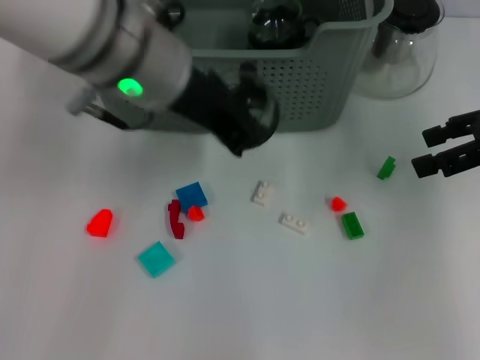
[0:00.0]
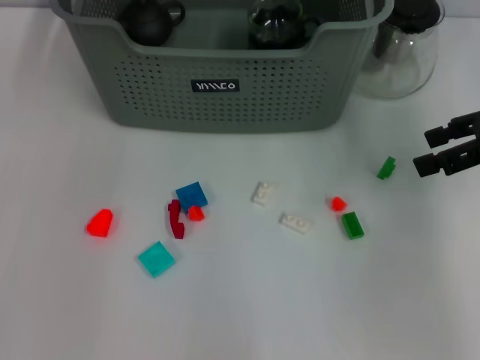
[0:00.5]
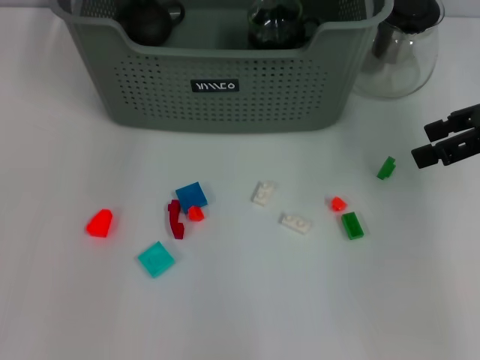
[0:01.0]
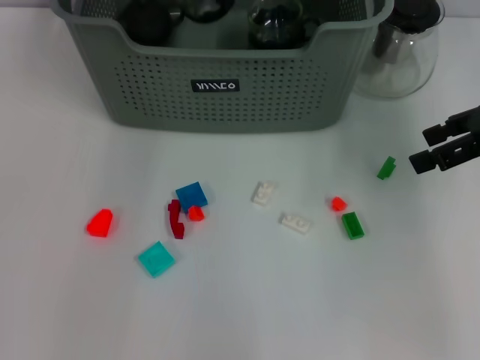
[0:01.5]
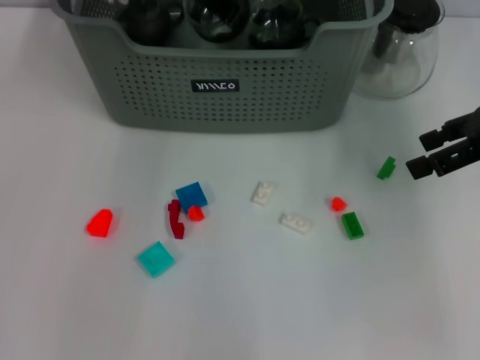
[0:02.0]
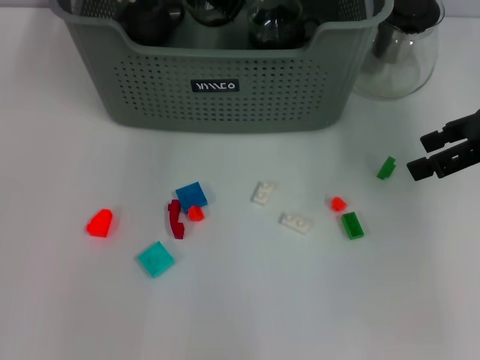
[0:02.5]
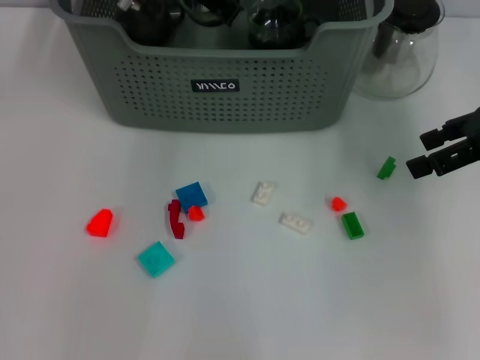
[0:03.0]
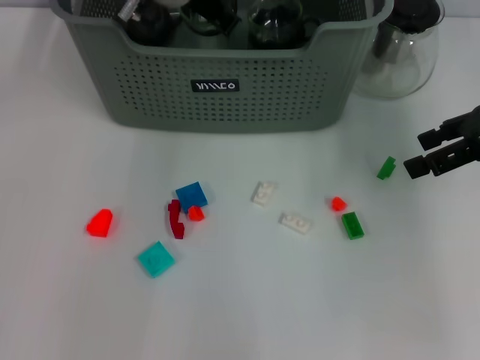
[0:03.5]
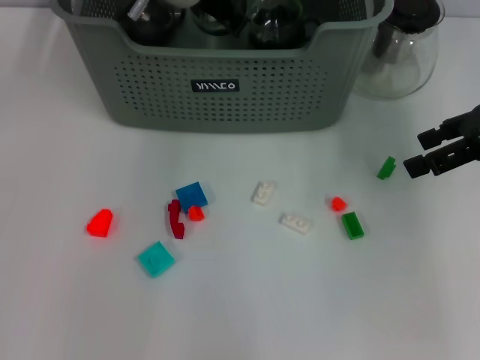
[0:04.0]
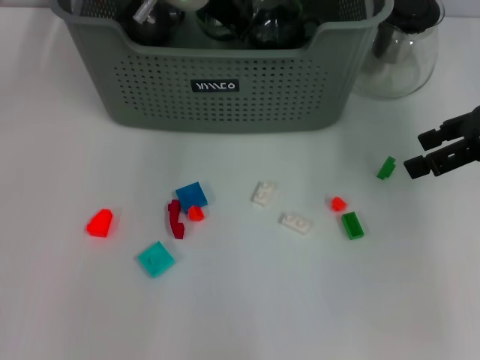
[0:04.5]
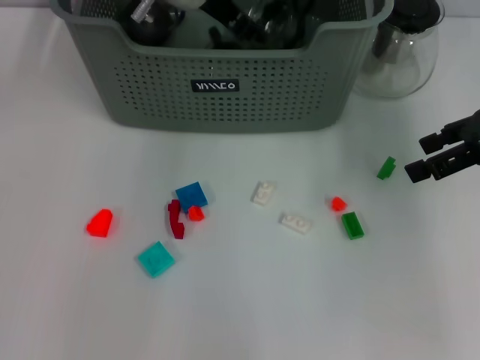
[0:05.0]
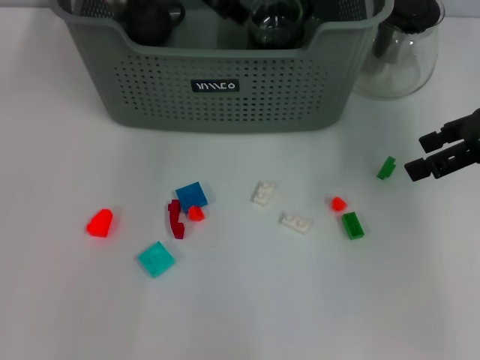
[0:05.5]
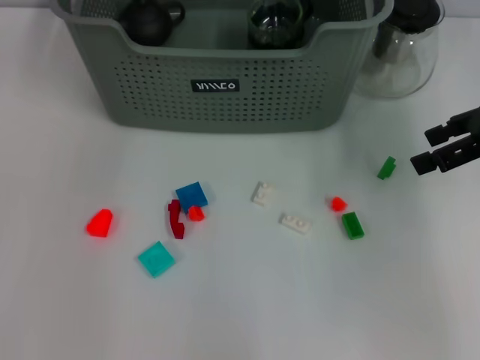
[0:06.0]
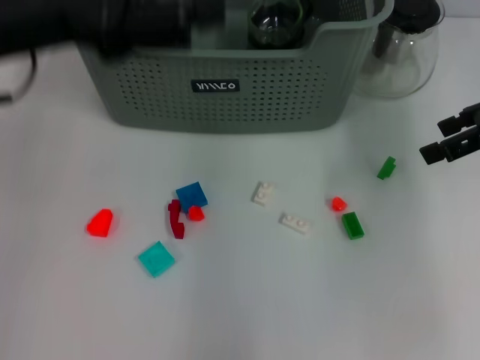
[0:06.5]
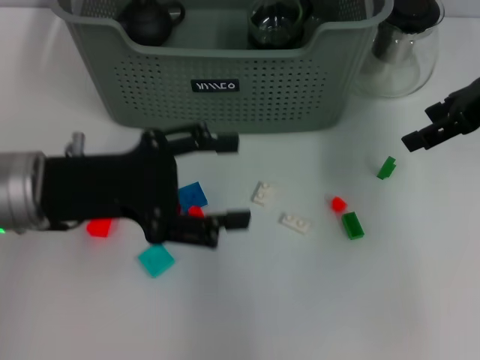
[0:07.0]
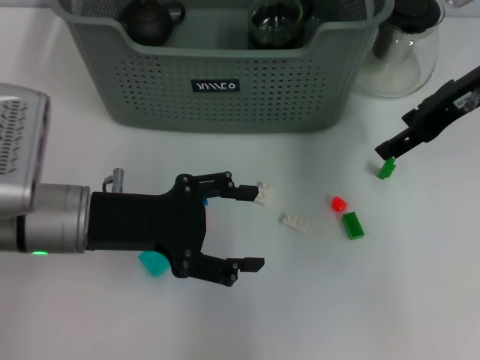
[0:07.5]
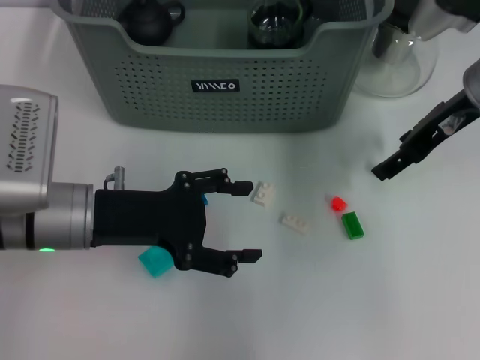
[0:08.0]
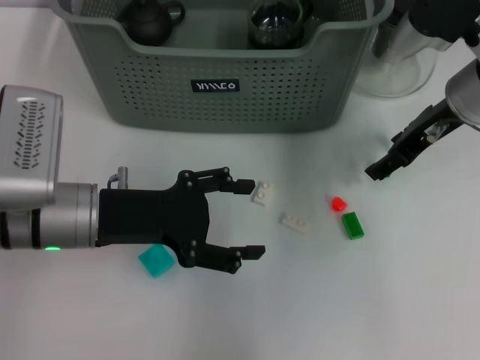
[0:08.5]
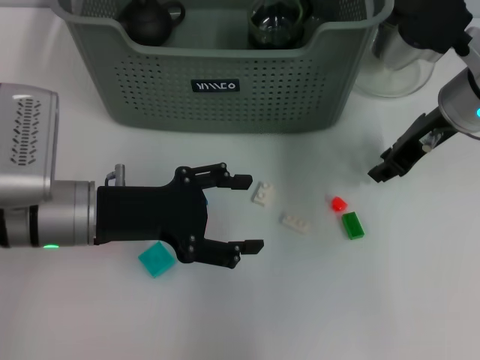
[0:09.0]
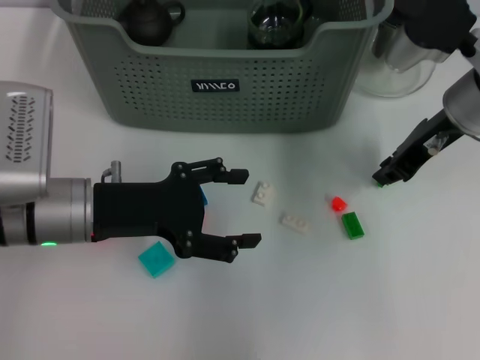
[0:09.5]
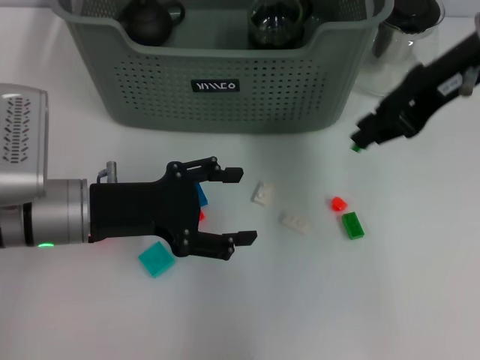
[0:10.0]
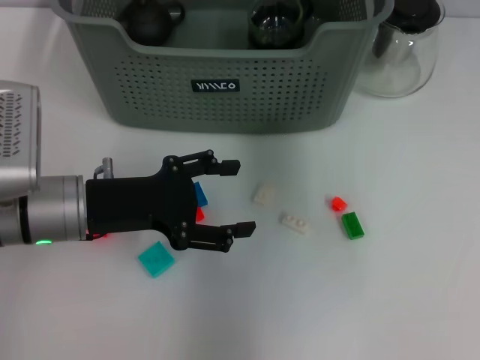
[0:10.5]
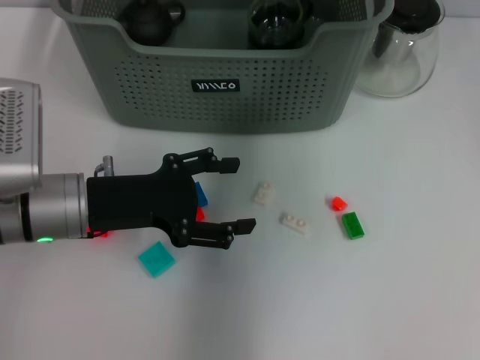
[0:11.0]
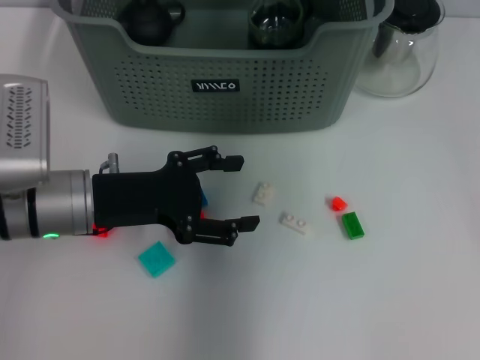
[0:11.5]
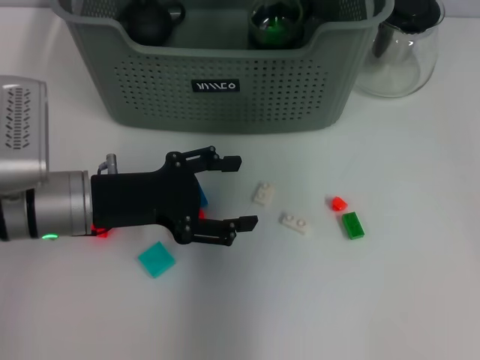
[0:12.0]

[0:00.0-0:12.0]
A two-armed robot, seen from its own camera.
Task of the whole recording: pick up the teacup on the table and place it into the storage bin, pick up the block on the table and place it into the storage bin.
Step, 0:00.0 to 0:05.0: Place the cup in the storage box with left gripper.
Step, 0:05.5 to 0:09.0: Grasp the green block with right gripper.
Step, 0:09.5 to 0:12.0: Place the green block in the storage box with right gripper.
0:00.0 to 0:02.0: The left gripper travels forward by some 15 cm.
0:02.0 to 0:04.0: There are only small adjustments of the grippers.
0:04.0 to 0:06.0: The left gripper travels upward, to the left and backward by some 15 cm, and opens its fingers.
0:06.0 to 0:08.0: The left gripper heads downward and backward, covering about 25 cm. The right gripper moves to the left, roughly 10 cm.
0:08.0 to 0:10.0: The right gripper shifts roughly 10 cm upward, and closes.
0:10.0 to 0:12.0: The right gripper shifts approximately 15 cm forward and to the left.

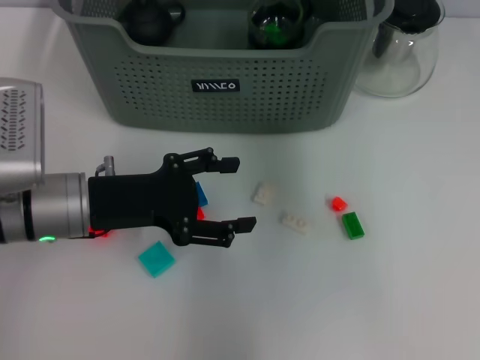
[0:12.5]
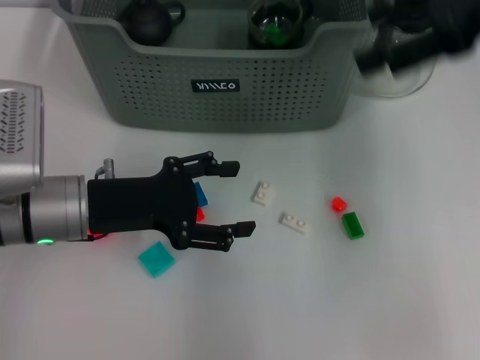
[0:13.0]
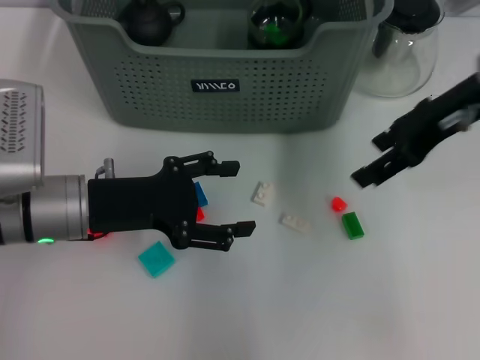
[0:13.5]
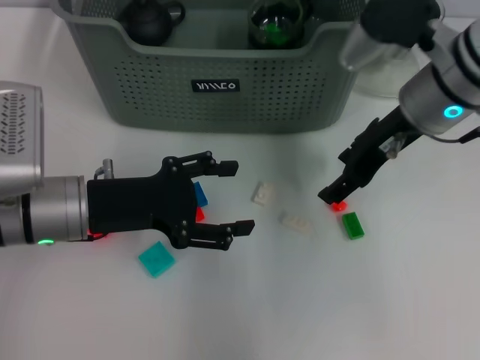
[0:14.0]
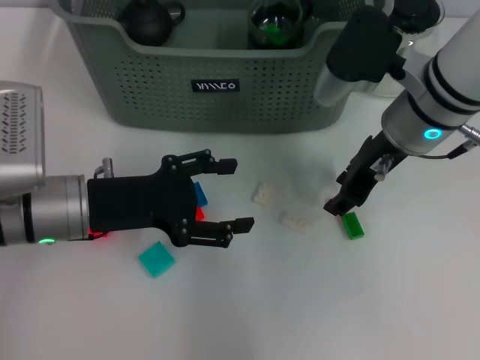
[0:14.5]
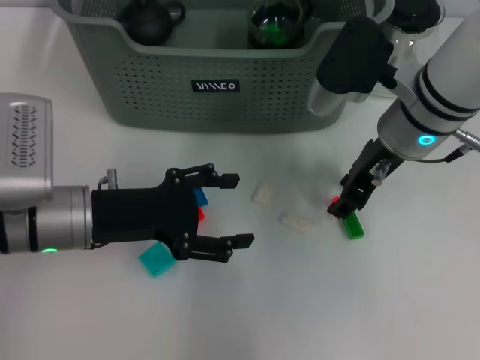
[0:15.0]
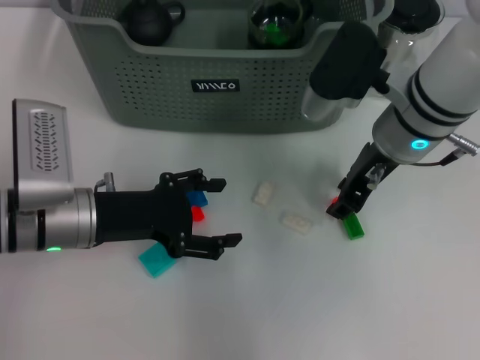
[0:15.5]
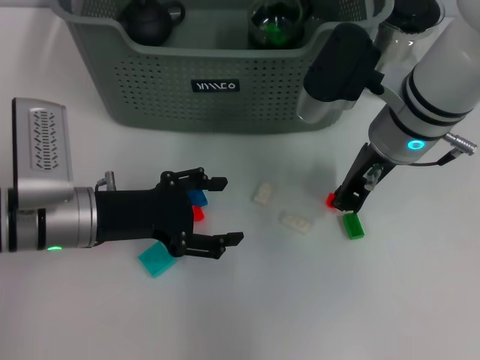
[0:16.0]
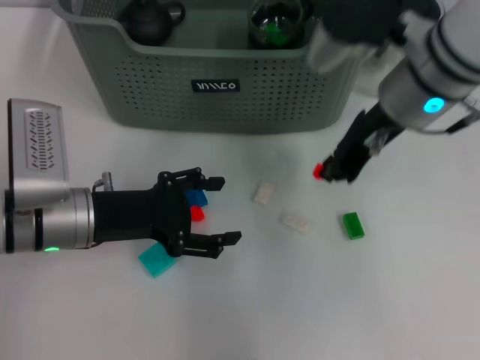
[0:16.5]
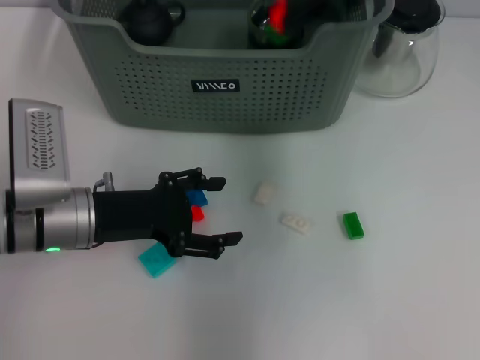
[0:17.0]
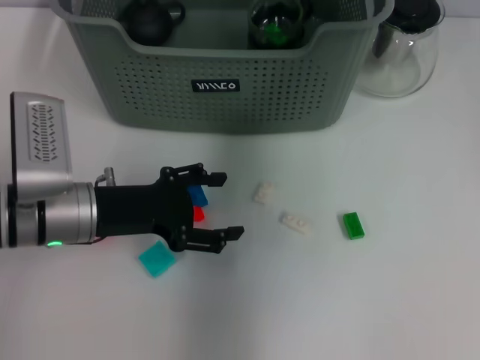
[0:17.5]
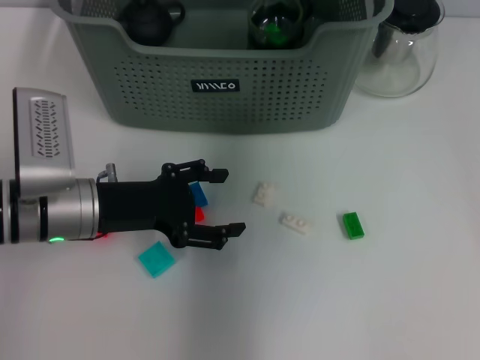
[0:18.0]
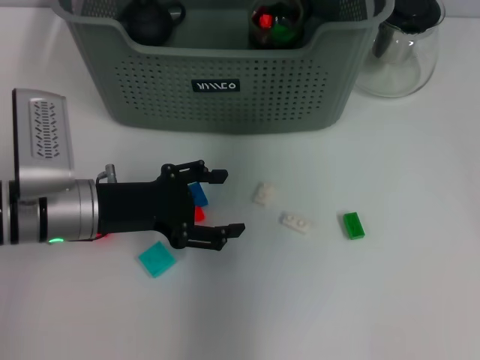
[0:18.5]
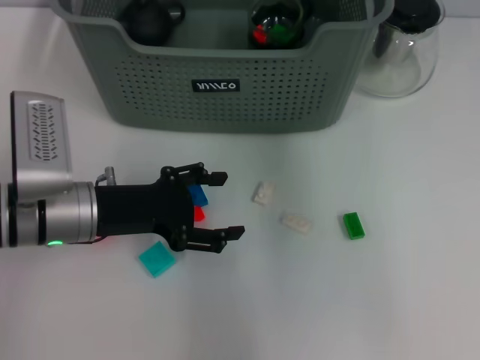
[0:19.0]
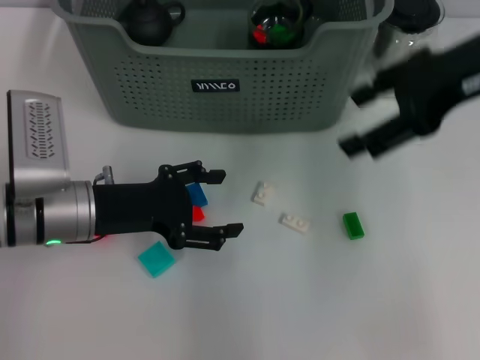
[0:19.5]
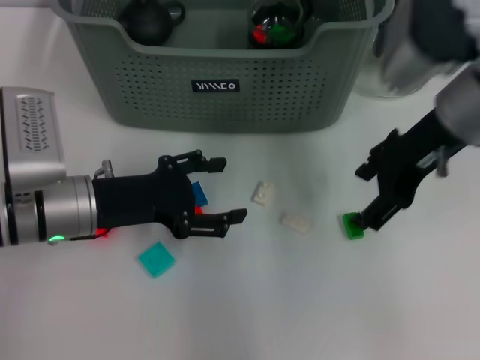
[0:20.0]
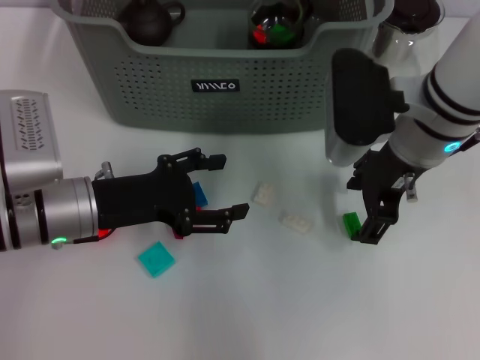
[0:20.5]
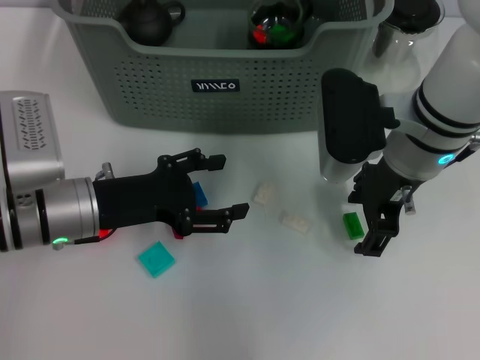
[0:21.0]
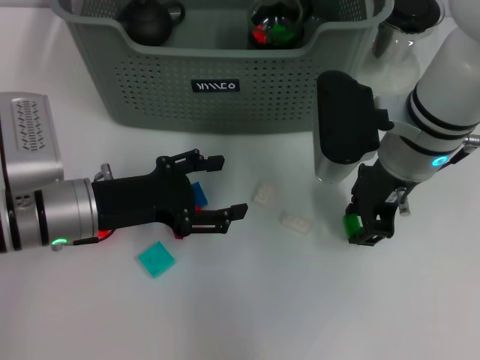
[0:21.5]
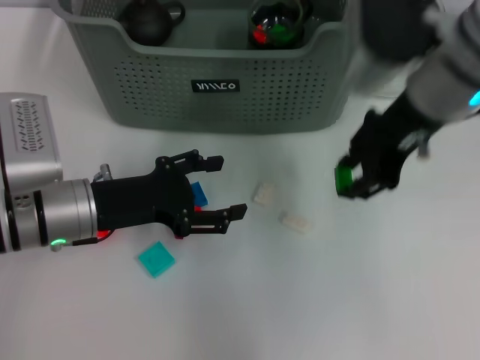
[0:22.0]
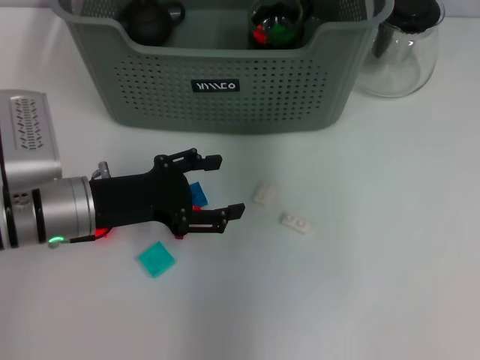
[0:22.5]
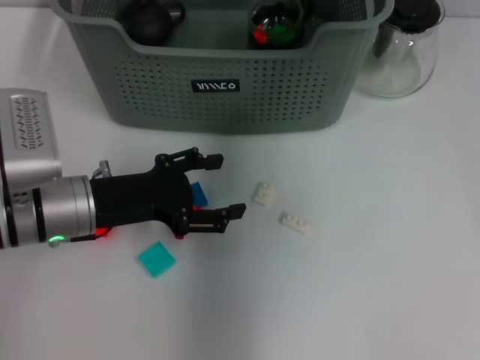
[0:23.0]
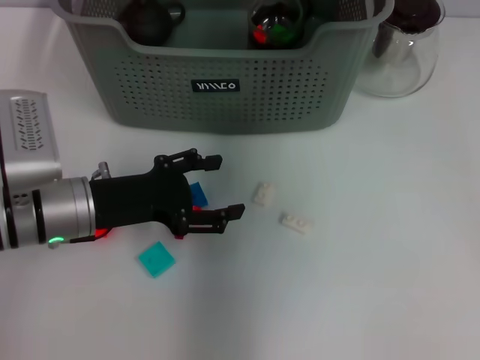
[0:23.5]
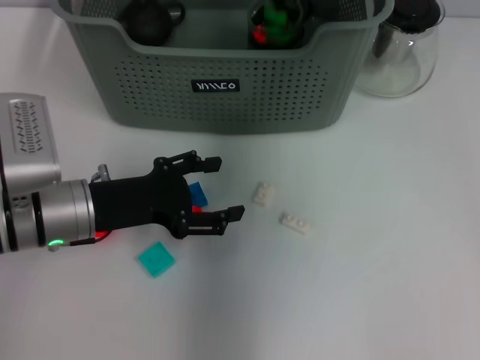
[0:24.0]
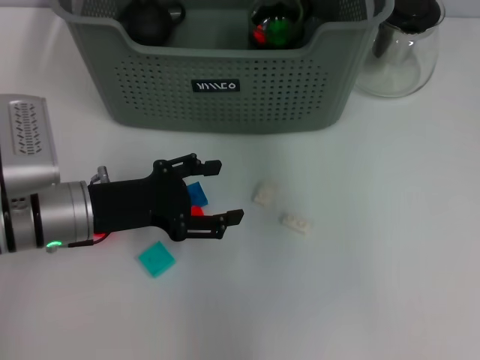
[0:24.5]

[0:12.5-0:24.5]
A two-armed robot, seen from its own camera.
Task of the whole recording: pick up the teacup on the table and place it into the storage bin, pick up the block on the table and place it into the storage bin.
Step, 0:12.5 to 0:16.0: Grasp the orange block with right gripper.
Step, 0:16.5 to 0:18.0: Place the orange block in the storage box with right gripper.
Step, 0:18.5 to 0:21.5: Grasp the green block with right gripper.
Step, 0:22.0 to 0:24.0: Place the green block in the storage box with right gripper.
0:12.5 to 0:14.5: The right gripper travels downward and backward by some 20 cm.
0:14.5 to 0:16.5: The right gripper closes up.
0:16.5 to 0:18.5: The right gripper heads forward and upward, covering about 15 cm, and opens its fingers.
0:18.5 to 0:20.5: The right gripper travels backward and downward by approximately 15 cm, and opens up.
0:20.5 to 0:22.5: The right gripper heads upward, covering some 20 cm, and closes up.

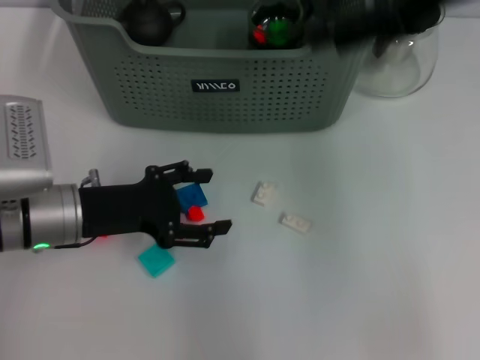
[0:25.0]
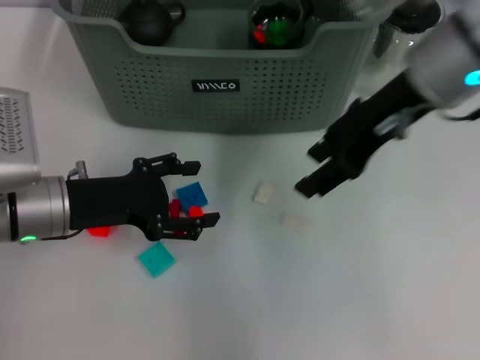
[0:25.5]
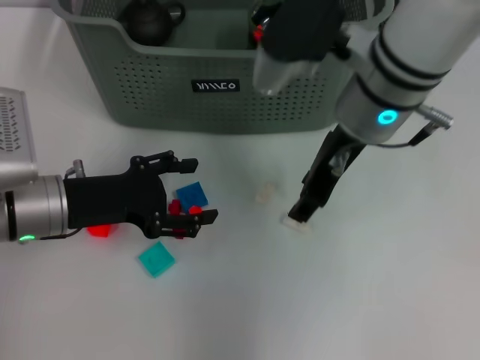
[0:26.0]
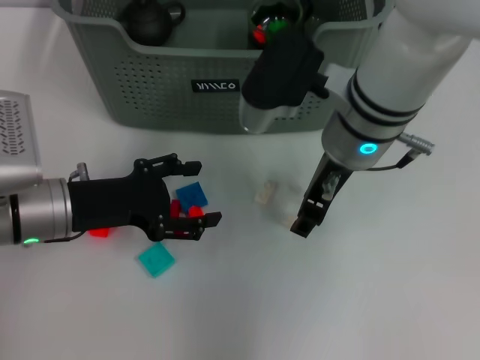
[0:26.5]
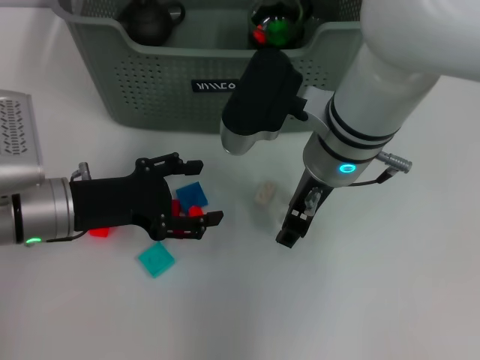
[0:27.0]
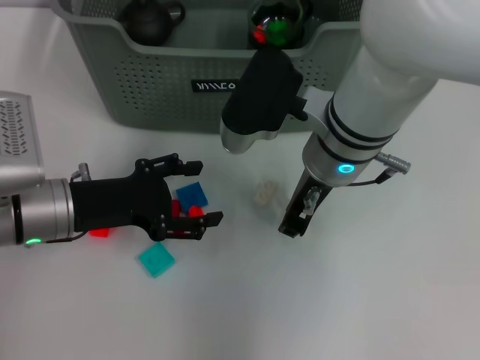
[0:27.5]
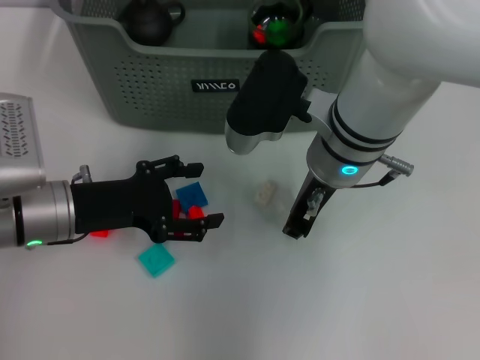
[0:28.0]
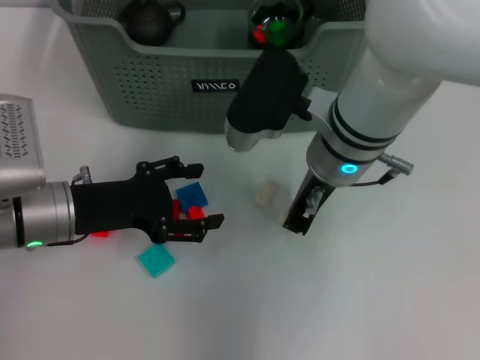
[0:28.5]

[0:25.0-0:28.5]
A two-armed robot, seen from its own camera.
Task of the whole recording: pick up the teacup on the table and place it into the storage bin, pick up the block on the table and place it into the storage bin.
Step, 0:25.0 to 0:28.0: Grasp the white block with right gripper.
0:25.0 to 0:27.0: The right gripper shifts some 20 cm downward and to the left.
0:27.0 to 0:28.5: Both grippers stay about where they are.
